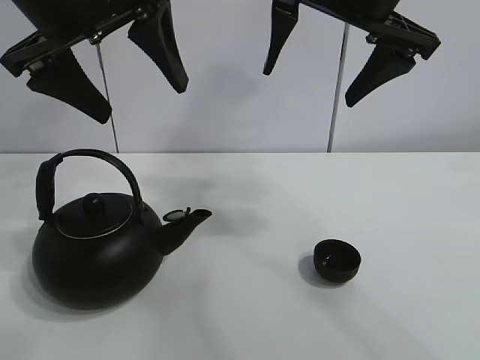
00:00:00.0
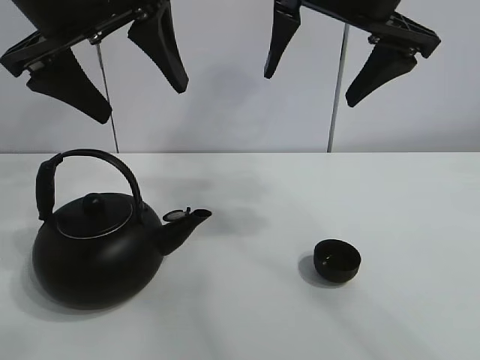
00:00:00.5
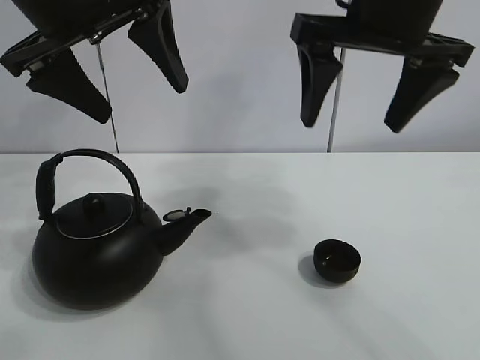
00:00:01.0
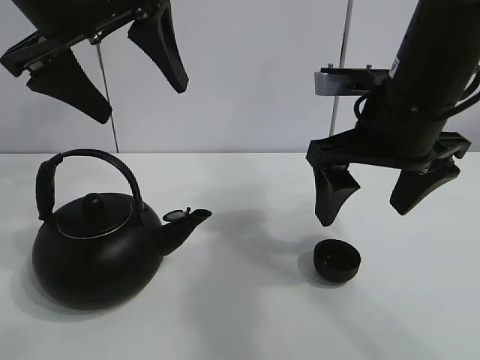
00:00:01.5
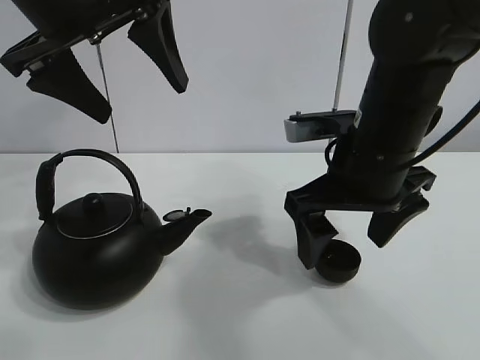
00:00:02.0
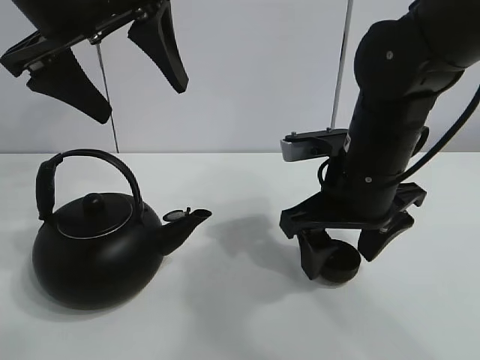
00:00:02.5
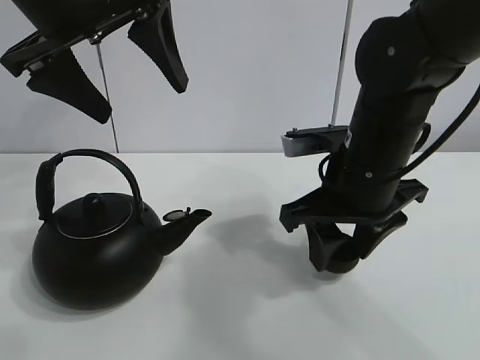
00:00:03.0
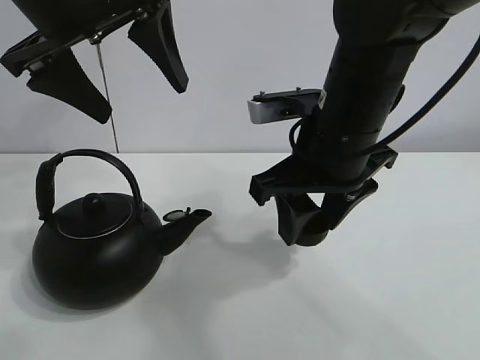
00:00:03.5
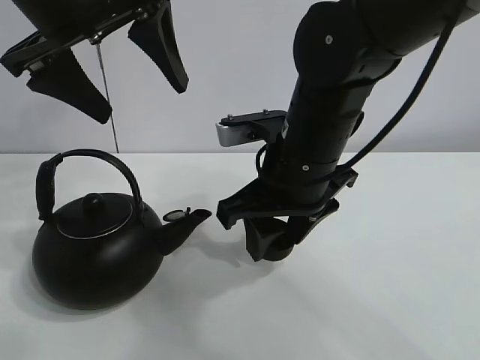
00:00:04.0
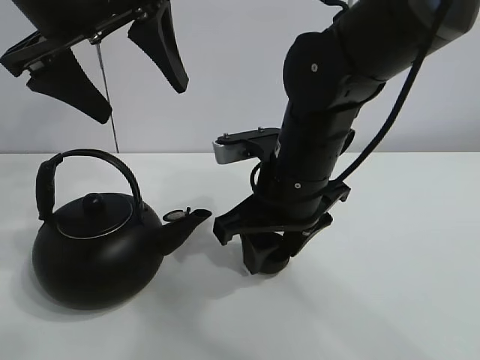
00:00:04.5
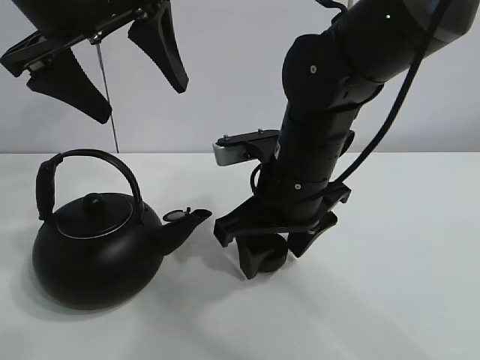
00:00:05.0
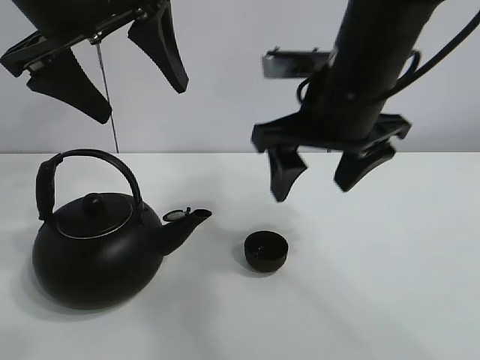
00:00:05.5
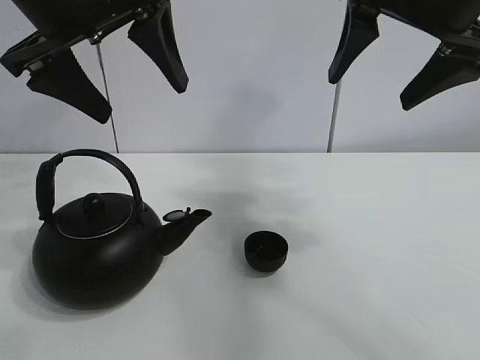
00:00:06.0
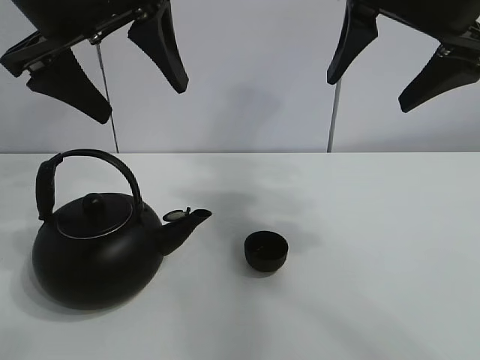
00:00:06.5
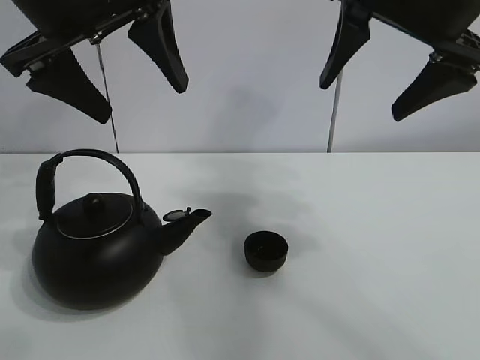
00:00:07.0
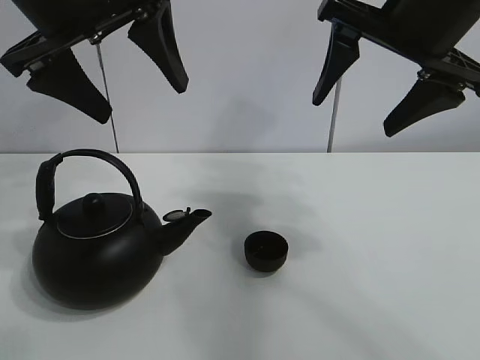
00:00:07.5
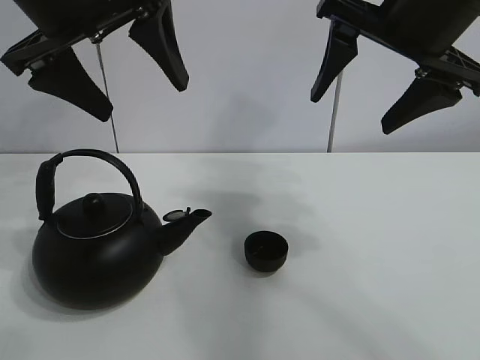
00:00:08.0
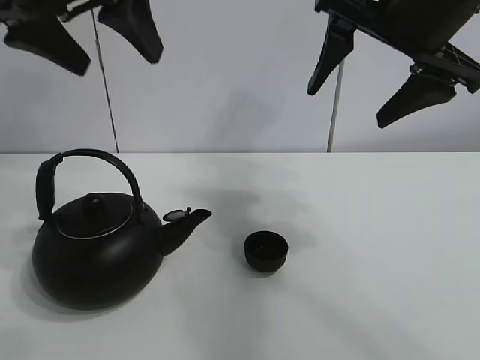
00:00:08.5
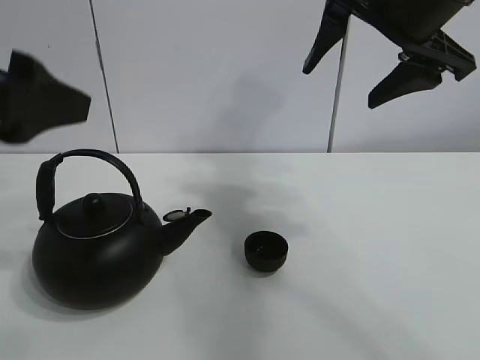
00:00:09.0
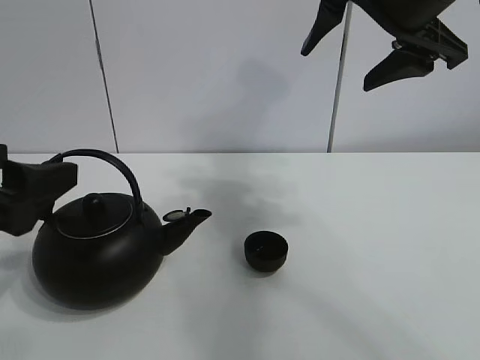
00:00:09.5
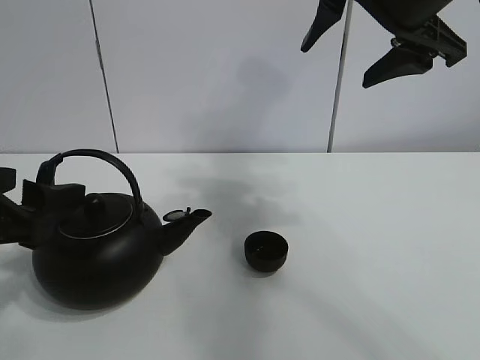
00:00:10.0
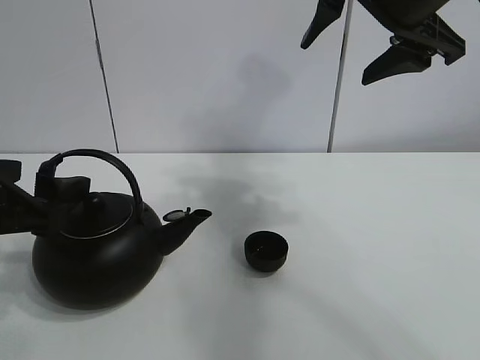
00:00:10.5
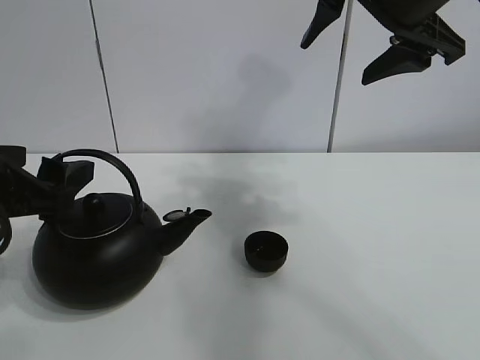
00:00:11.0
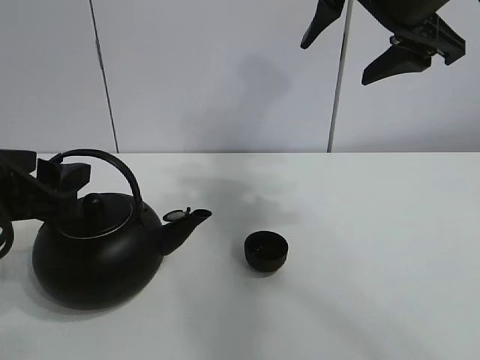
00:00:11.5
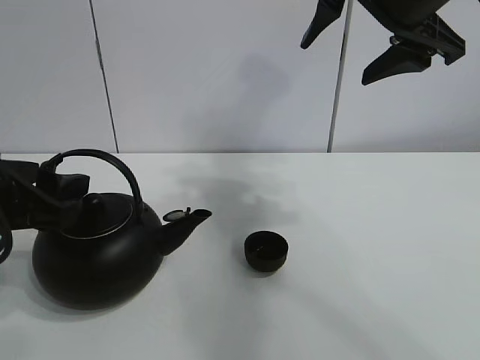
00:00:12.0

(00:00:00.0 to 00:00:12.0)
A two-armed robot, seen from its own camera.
Task of the whole recording: pour tea into the teacup.
Step, 00:00:00.0 - 00:00:02.5: Pick up the teacup with the right gripper.
Step, 00:00:03.0 - 00:00:05.0: Place the teacup in the center of view with the right gripper.
00:00:02.0 - 00:00:04.0: The right gripper shifts roughly 5 cm to the left, and closes up.
00:00:04.0 - 00:00:06.0: The right gripper shifts some 20 cm upward and to the right, and opens.
00:00:06.0 - 00:00:08.0: The grippers move only a little.
00:00:08.0 - 00:00:10.0: The left gripper travels downward, backward and to the left by roughly 20 cm.
00:00:10.0 - 00:00:12.0: The grippers make only small movements.

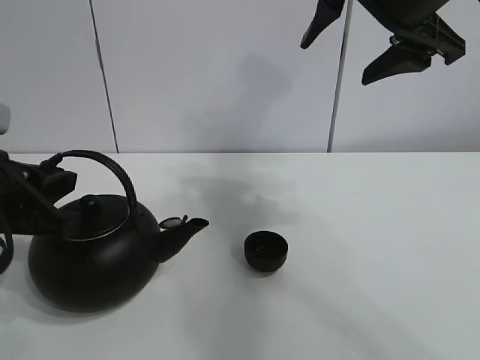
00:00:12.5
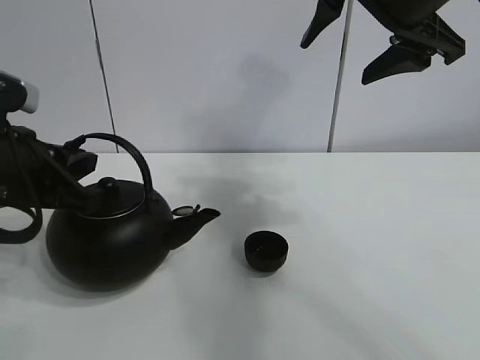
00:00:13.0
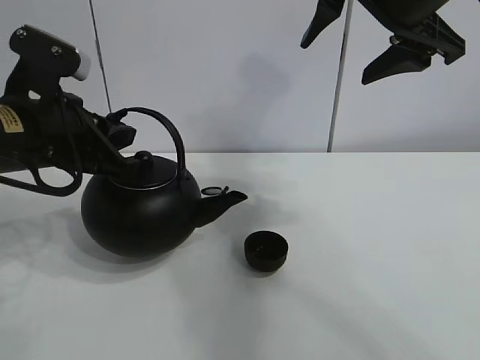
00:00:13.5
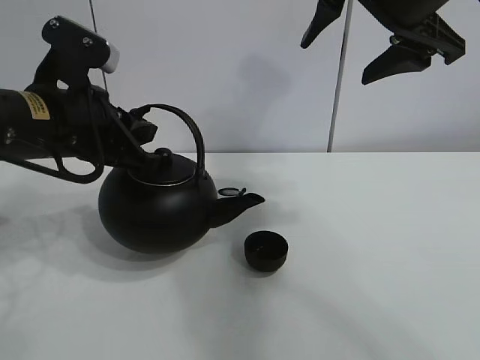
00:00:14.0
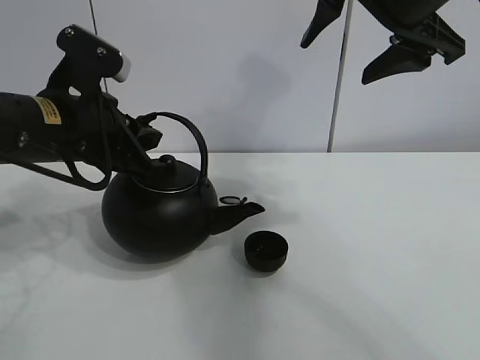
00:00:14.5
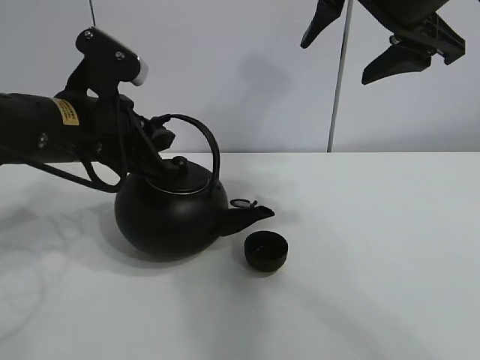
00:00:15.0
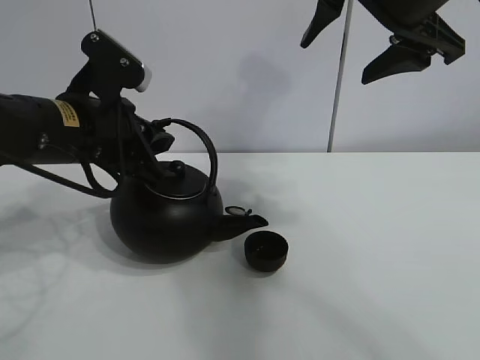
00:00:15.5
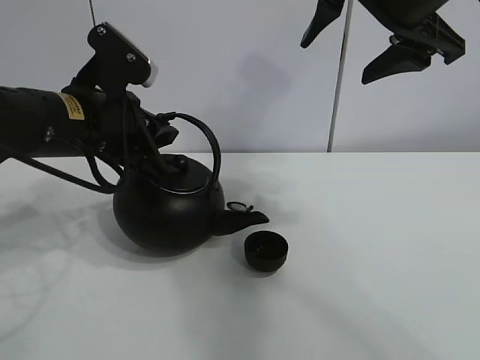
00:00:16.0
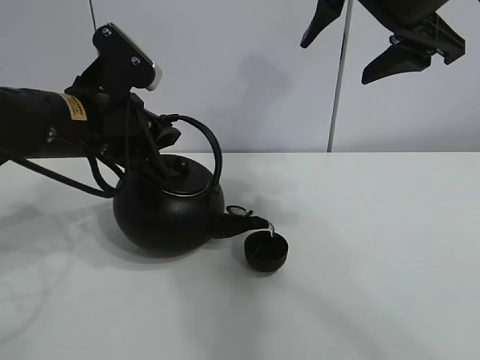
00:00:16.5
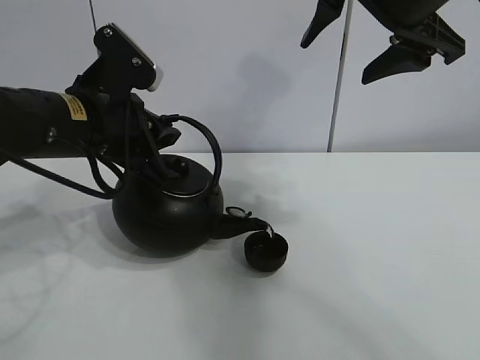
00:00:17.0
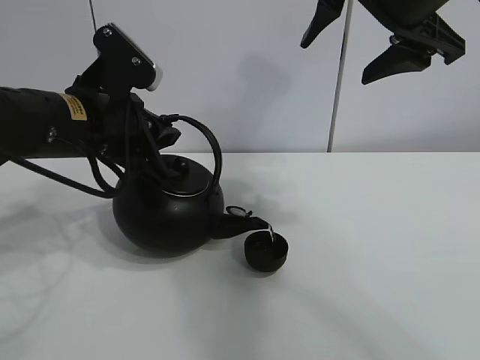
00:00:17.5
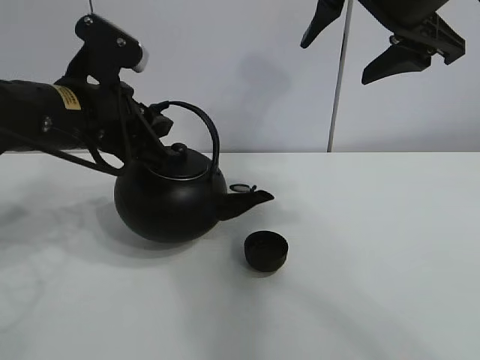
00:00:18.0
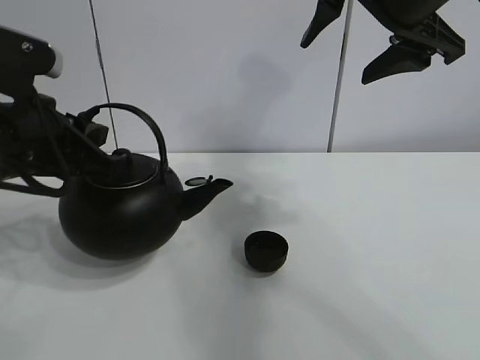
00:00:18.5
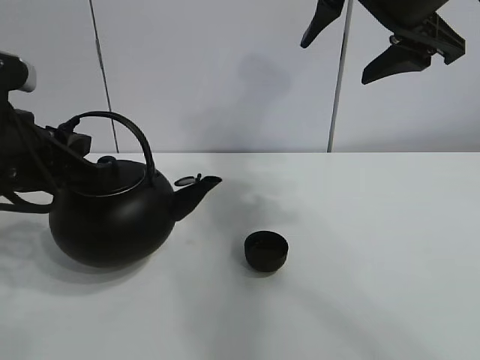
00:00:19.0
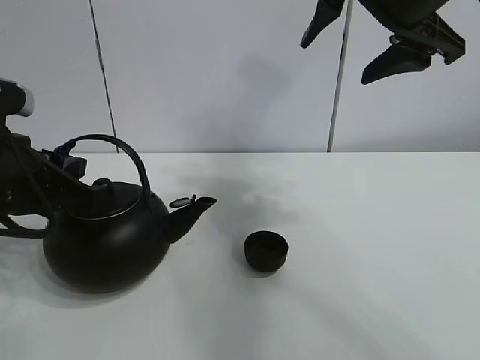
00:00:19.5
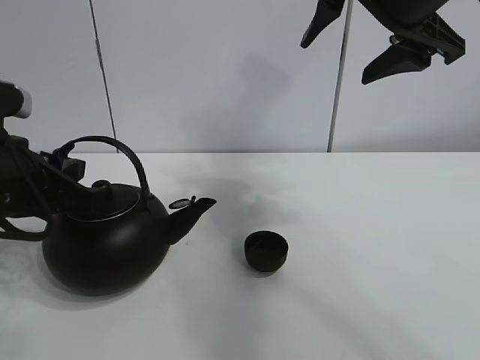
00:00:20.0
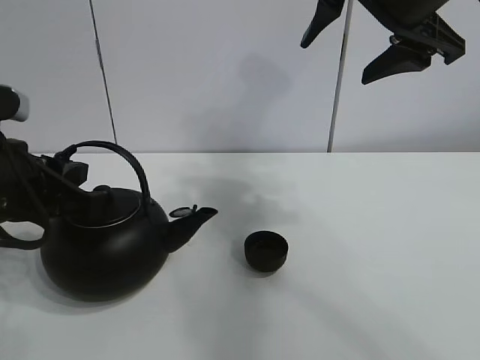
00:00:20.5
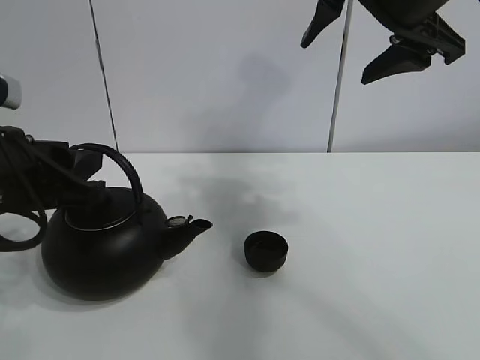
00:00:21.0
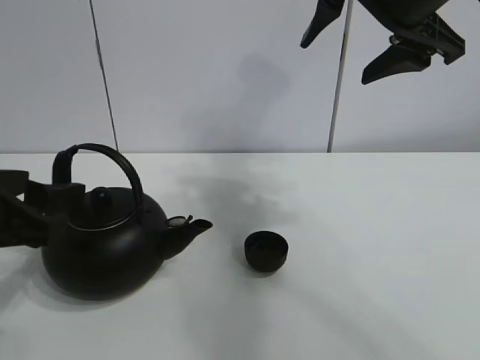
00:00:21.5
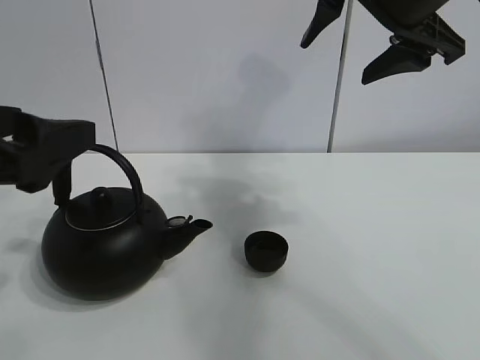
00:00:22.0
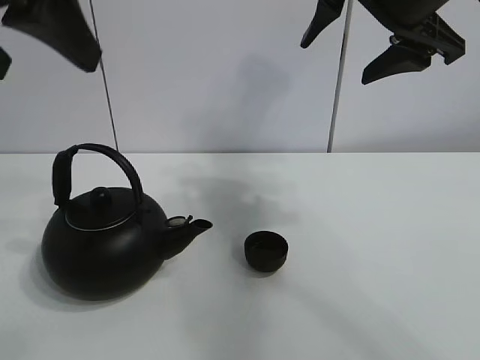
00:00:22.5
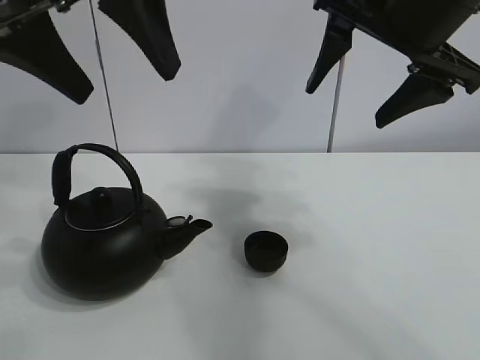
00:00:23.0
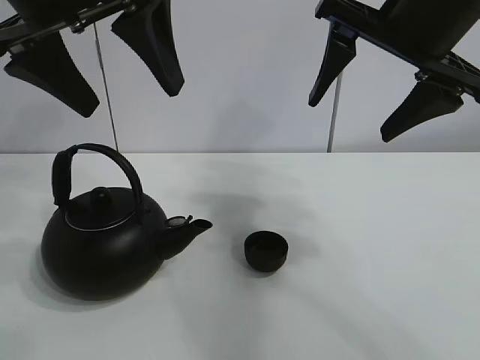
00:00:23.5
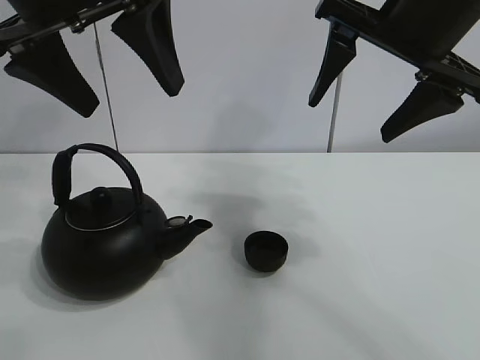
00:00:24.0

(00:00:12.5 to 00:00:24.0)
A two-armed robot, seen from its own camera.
Task of the whole recording: pour tea into the teacup.
Step, 00:00:12.5 - 00:00:17.5: Pour tea into the teacup with the left gripper.
00:00:12.5 - 00:00:14.5: The left gripper is displaced forward and to the right by some 10 cm.
00:00:14.5 - 00:00:16.5: There are only small adjustments of the grippers.
00:00:16.5 - 00:00:18.5: The left gripper shifts by some 5 cm.
00:00:18.5 - 00:00:20.0: There are only small adjustments of the grippers.
00:00:20.0 - 00:00:22.0: The left gripper is displaced backward and upward by about 10 cm, and opens.
00:00:22.0 - 00:00:24.0: The left gripper heads upward, forward and to the right, covering some 20 cm.

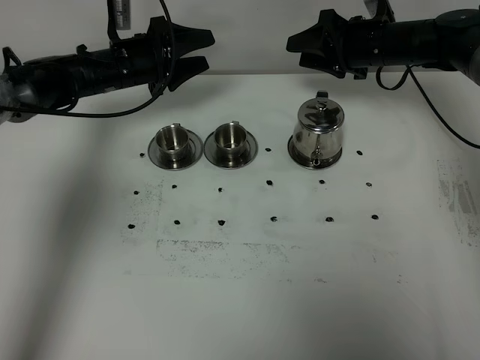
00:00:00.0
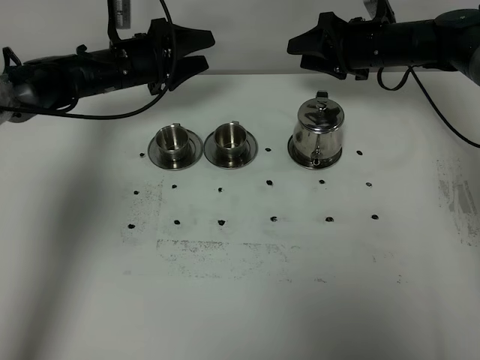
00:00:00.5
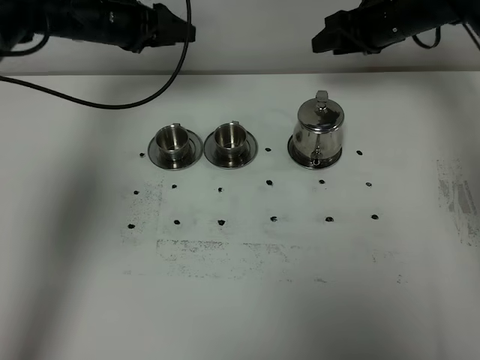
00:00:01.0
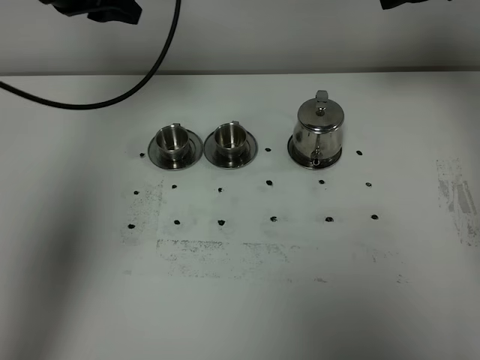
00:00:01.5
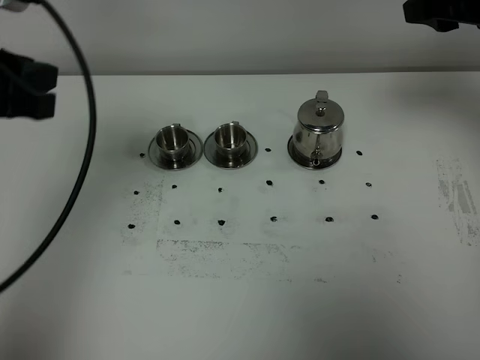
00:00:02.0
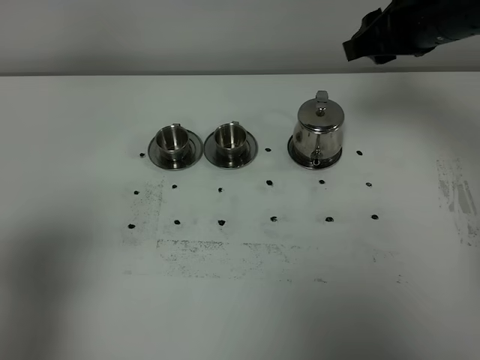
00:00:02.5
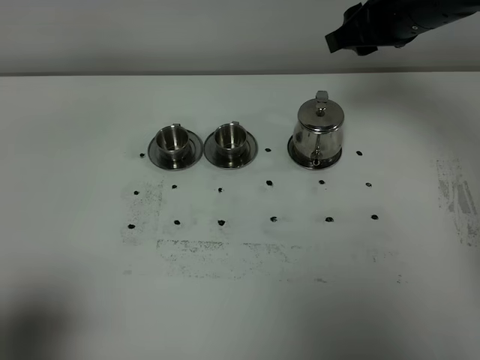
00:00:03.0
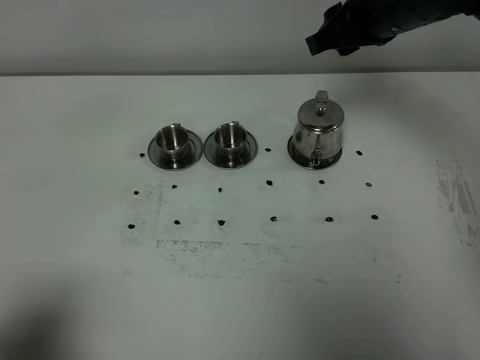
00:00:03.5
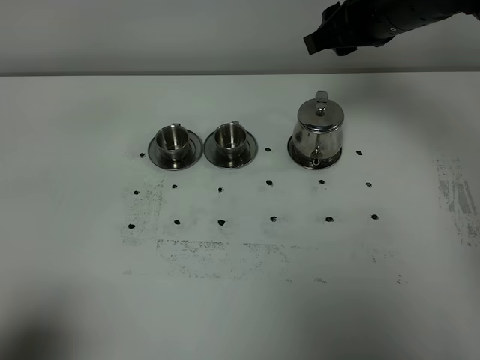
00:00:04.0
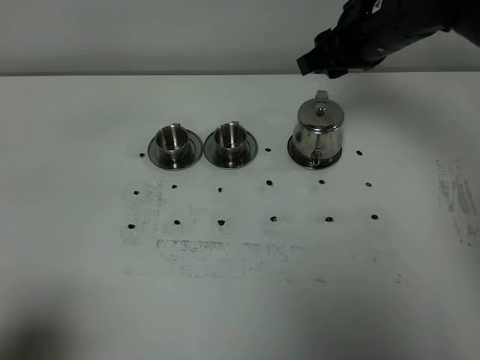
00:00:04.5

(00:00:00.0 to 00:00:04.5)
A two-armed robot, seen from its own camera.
Task of the whole recording: grasp the stainless steel teapot and pour the tea into the two stainless steel teacups one by one, put the stainless steel teapot back in its original place.
00:00:00.0 - 00:00:02.0: The left gripper moves backward and upward, roughly 35 cm, and closes up; the right gripper goes some 25 cm upward and backward.
00:00:02.0 - 00:00:04.5: The left gripper goes approximately 25 cm backward. The right gripper is displaced to the left, downward and forward by roughly 15 cm.
